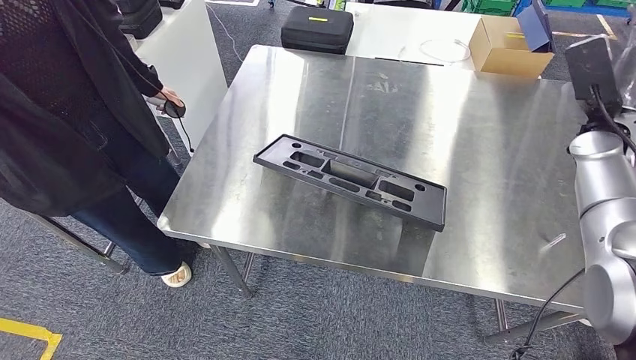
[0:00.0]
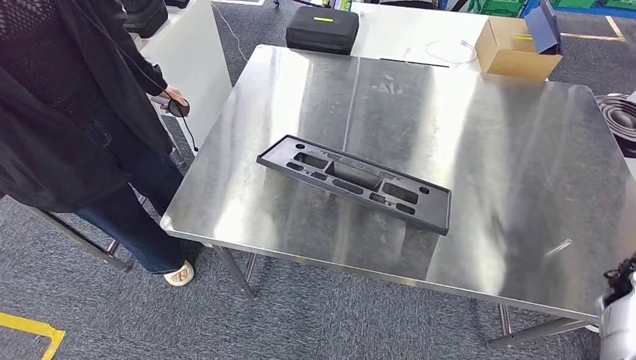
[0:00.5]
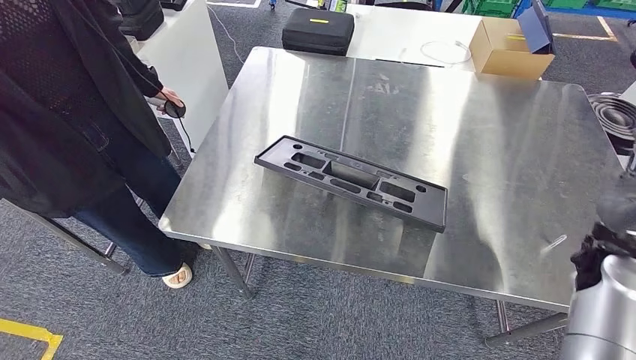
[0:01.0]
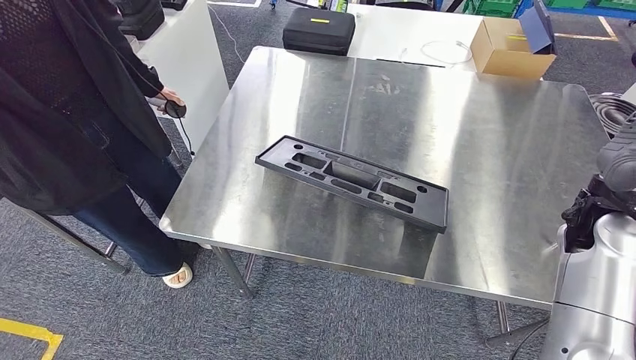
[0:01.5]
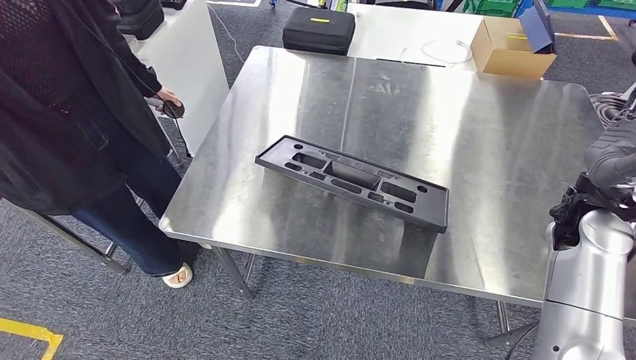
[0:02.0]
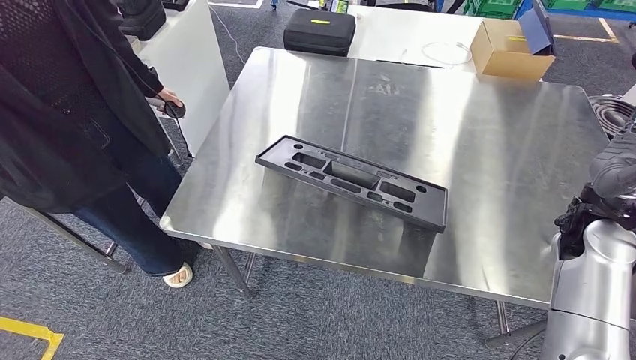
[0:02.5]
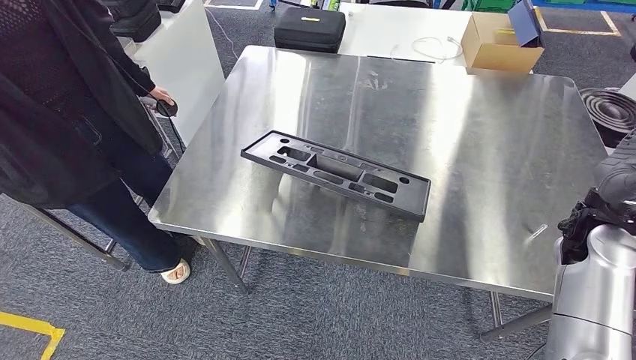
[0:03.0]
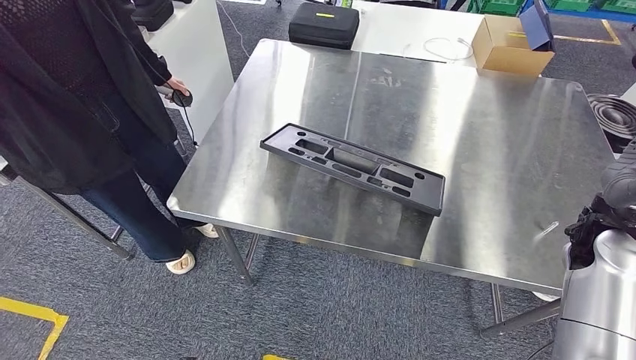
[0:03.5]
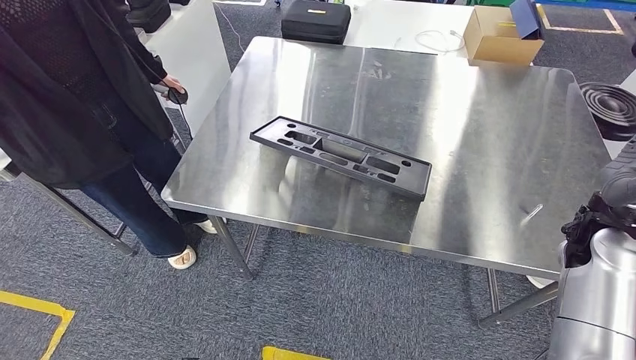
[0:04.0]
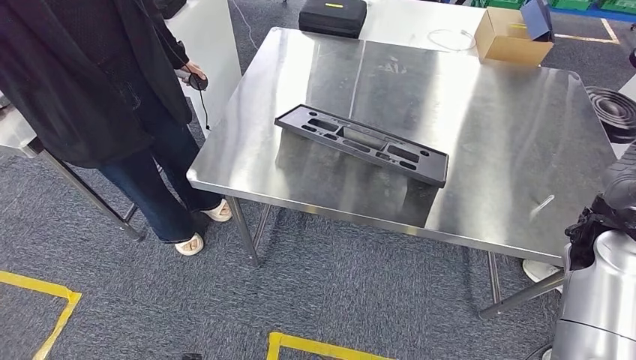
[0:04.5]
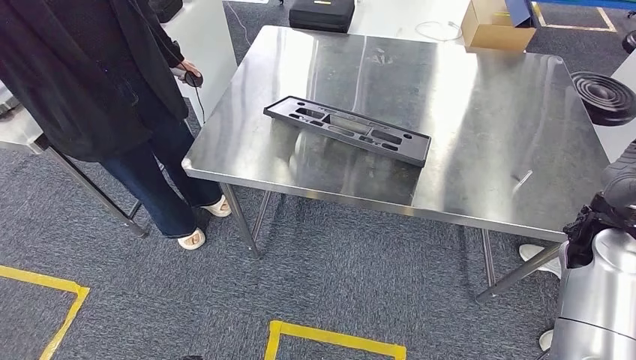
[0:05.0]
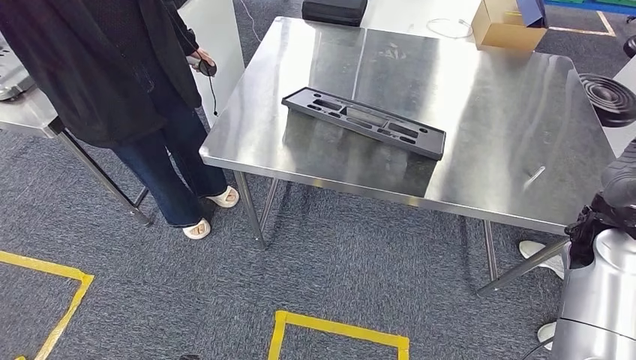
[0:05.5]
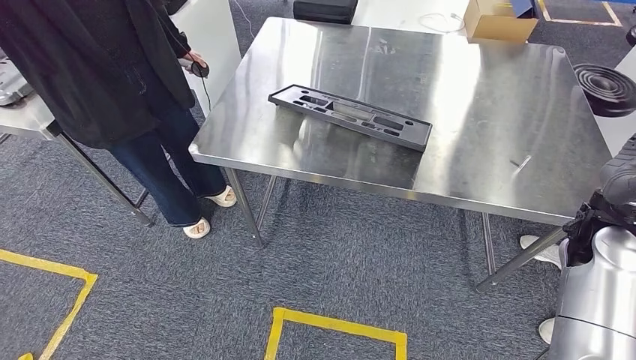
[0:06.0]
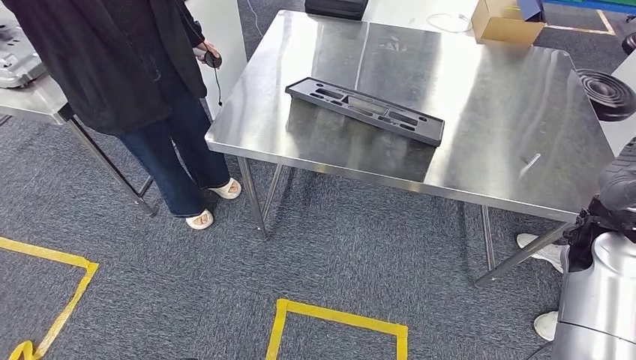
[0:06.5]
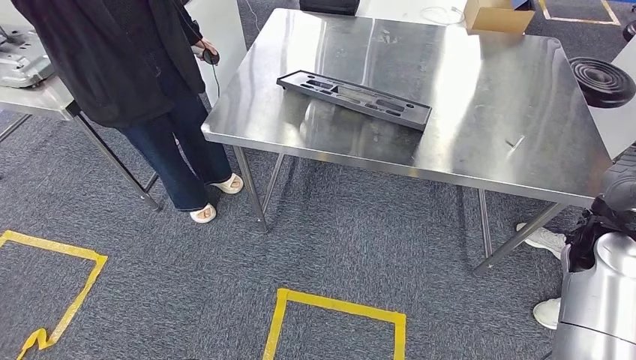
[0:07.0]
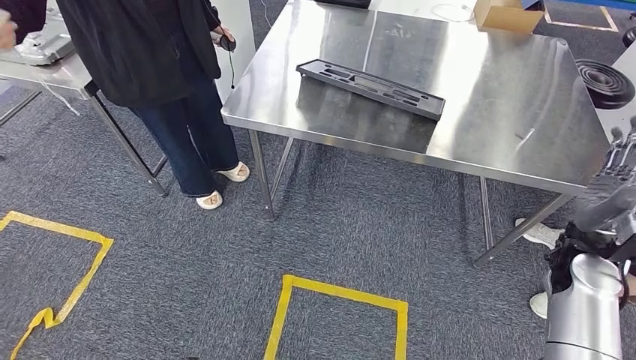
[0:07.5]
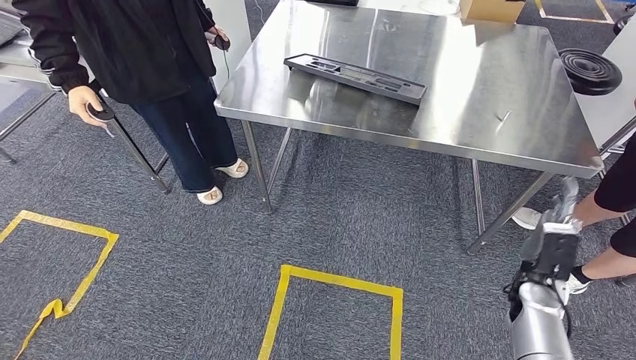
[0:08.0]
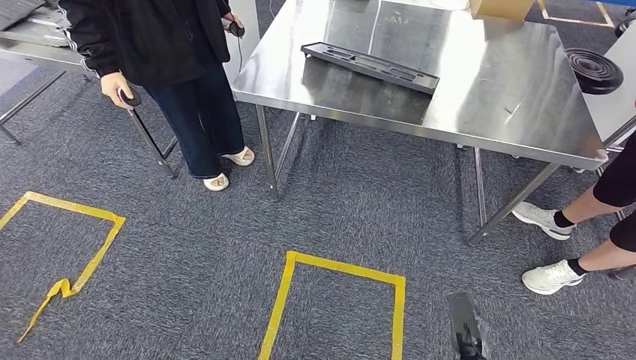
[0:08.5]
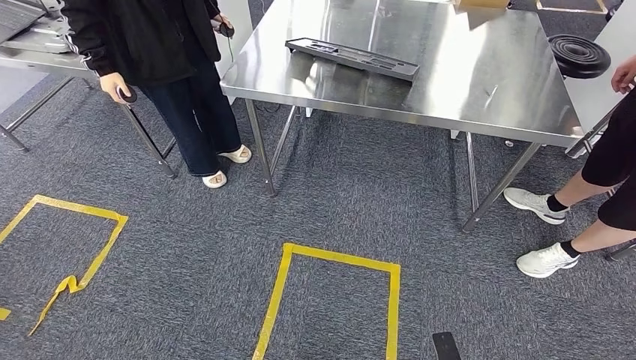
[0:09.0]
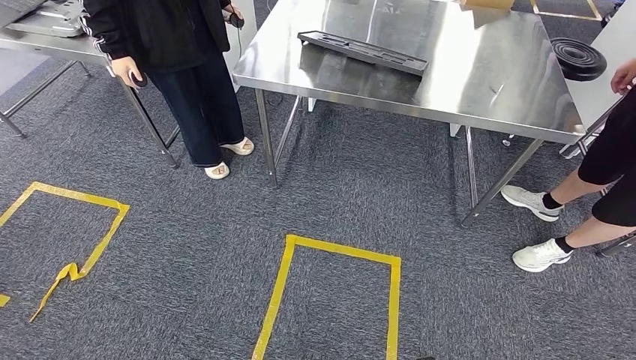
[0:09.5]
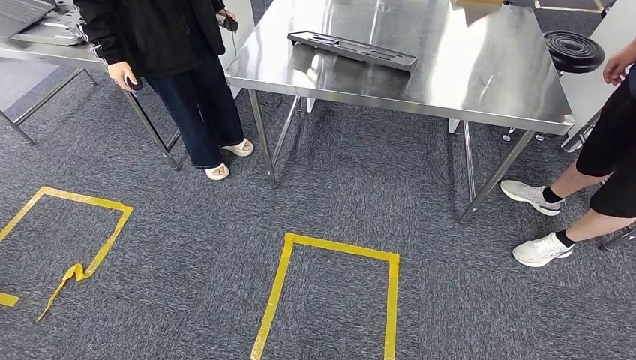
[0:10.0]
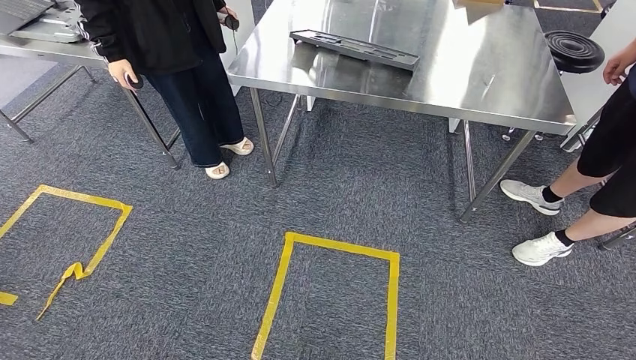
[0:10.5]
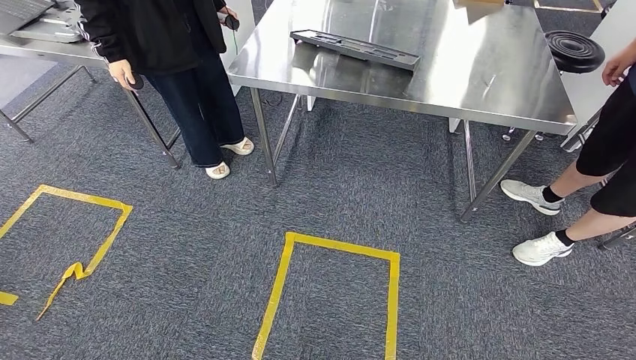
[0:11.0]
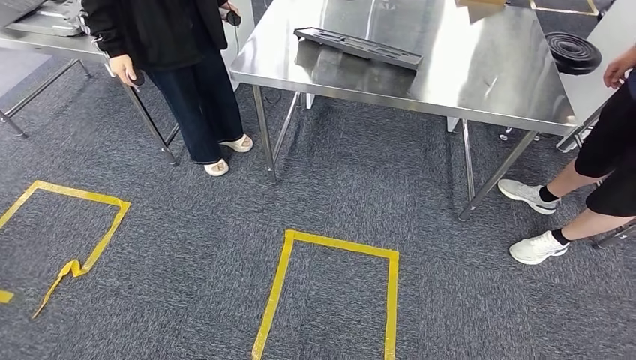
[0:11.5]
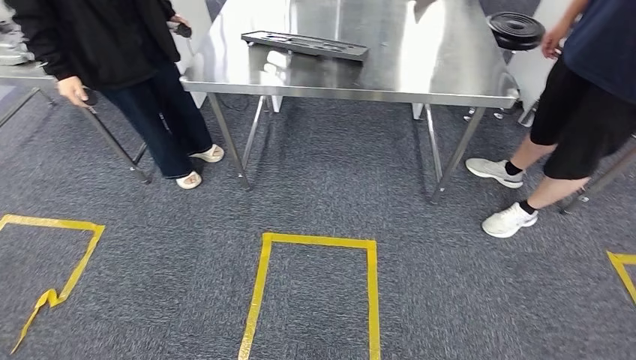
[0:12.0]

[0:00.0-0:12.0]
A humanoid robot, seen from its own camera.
Step, 0:00.0 to 0:08.5: Insert the large material into the corresponding slot on the workbench.
0:00.0 to 0:02.0: The right hand shifts approximately 10 cm backward and to the left, and reaches roughly 15 cm downward, then returns.

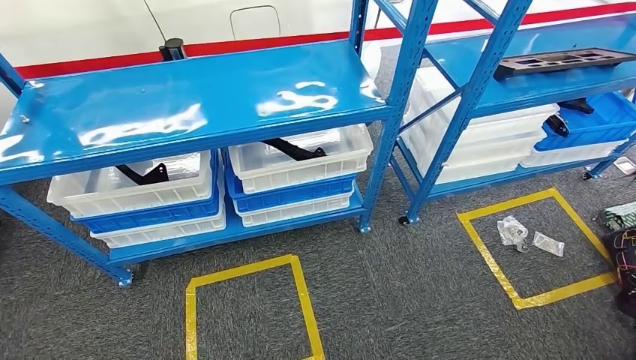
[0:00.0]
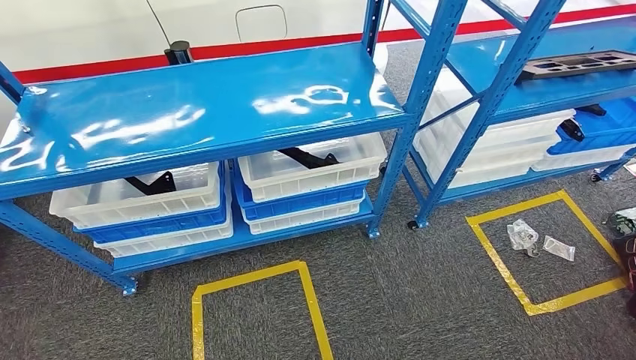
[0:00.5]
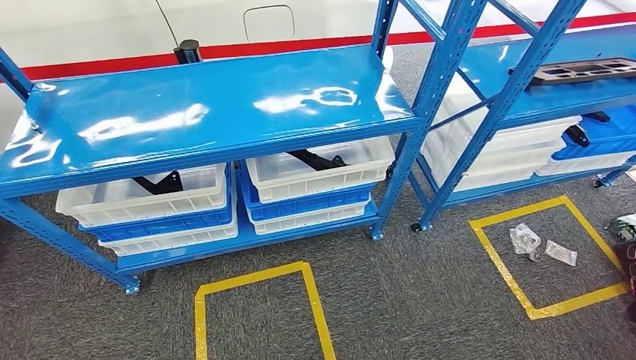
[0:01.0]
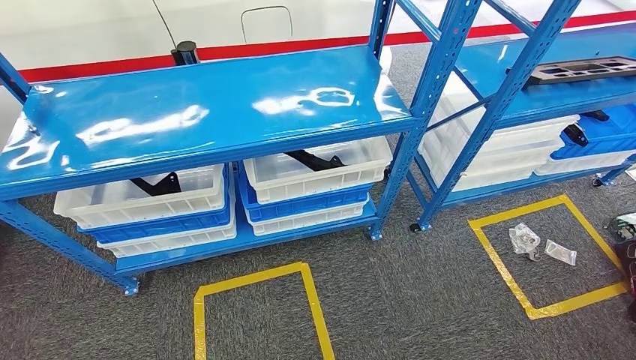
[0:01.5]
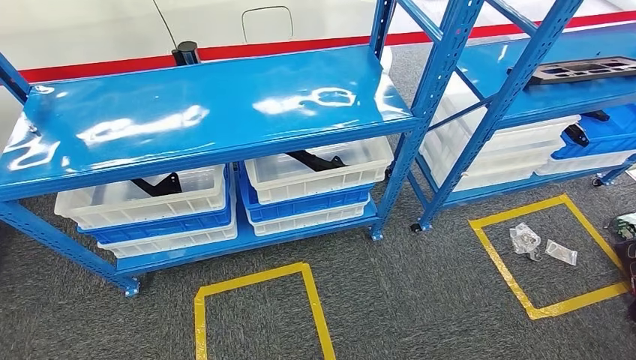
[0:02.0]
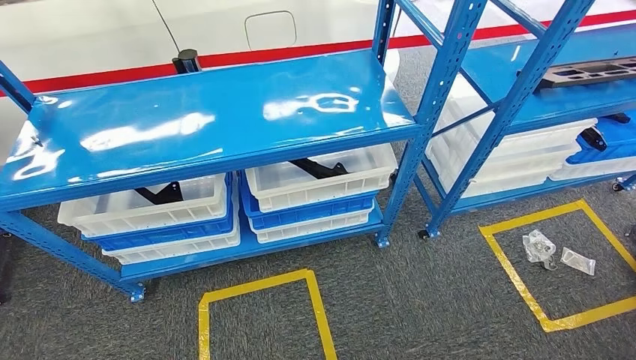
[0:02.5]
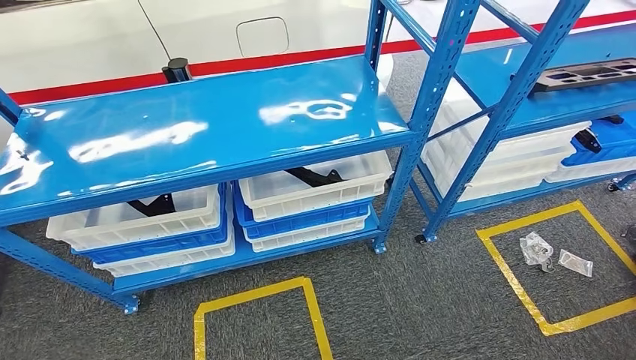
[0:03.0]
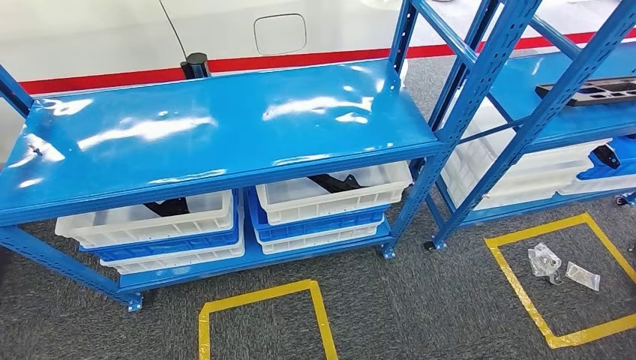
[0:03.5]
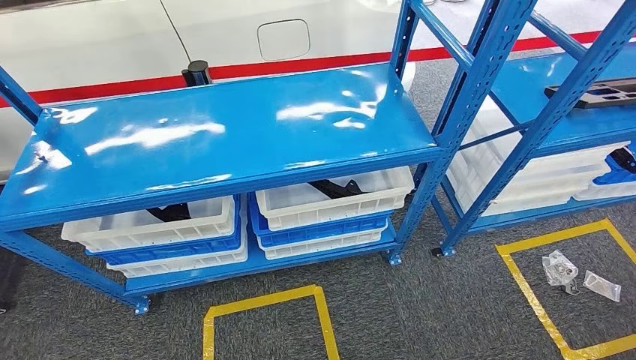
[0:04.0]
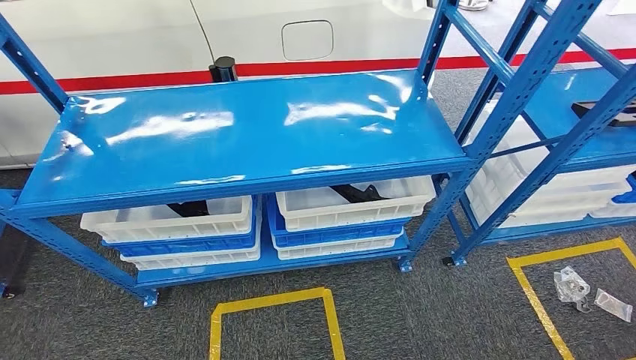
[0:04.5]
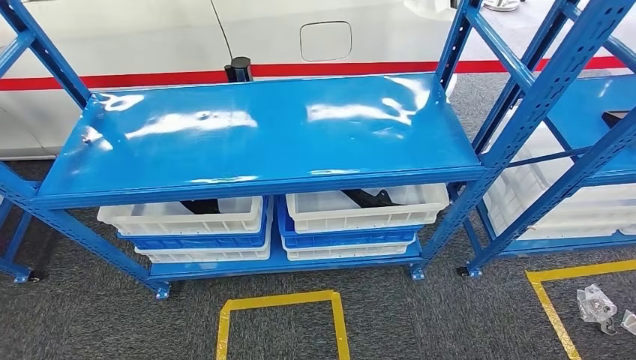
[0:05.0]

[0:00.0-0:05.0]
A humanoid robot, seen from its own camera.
Step, 0:00.0 to 0:05.0: Move to the initial position of the shelf.
